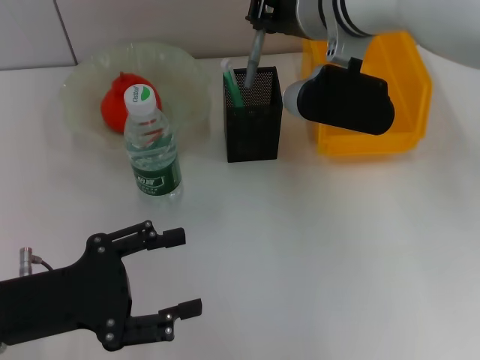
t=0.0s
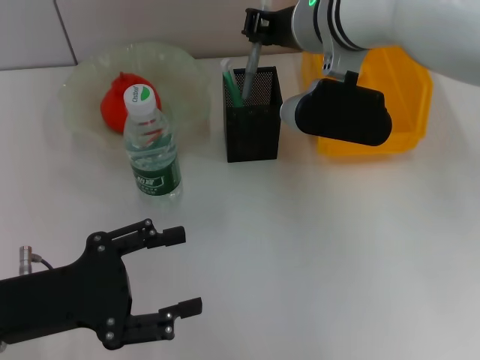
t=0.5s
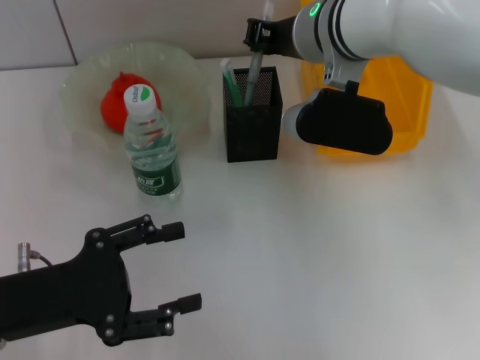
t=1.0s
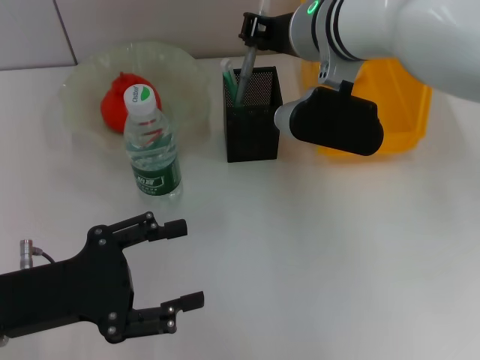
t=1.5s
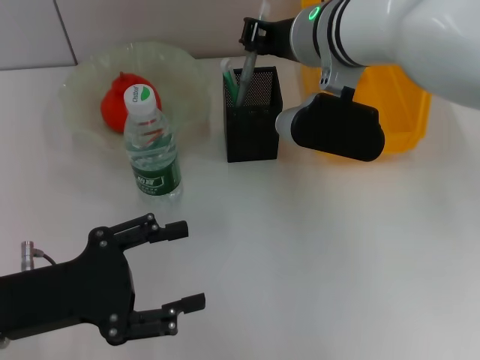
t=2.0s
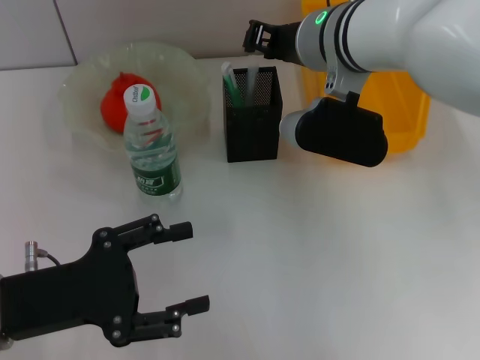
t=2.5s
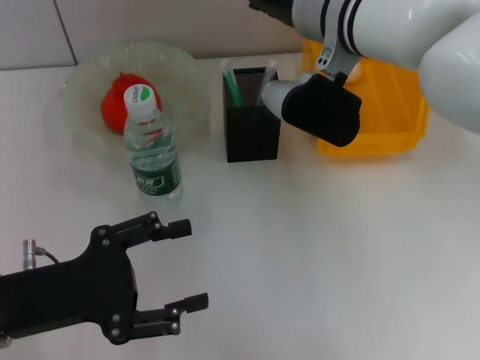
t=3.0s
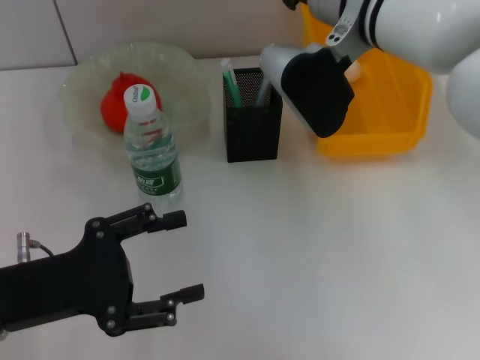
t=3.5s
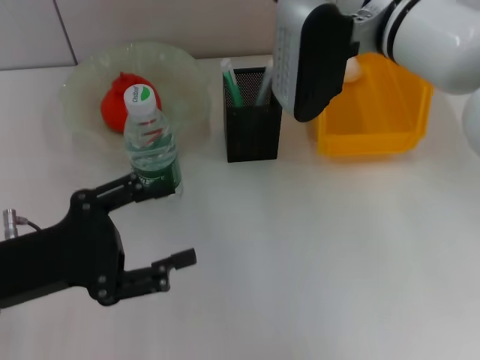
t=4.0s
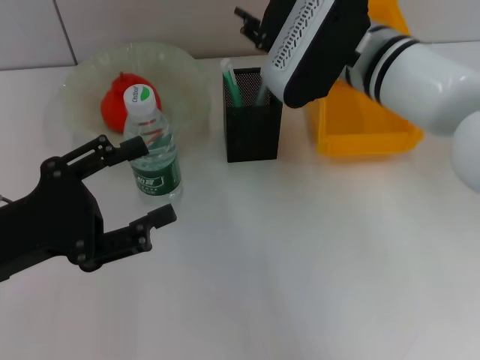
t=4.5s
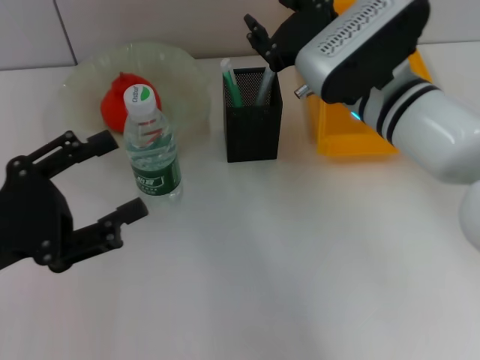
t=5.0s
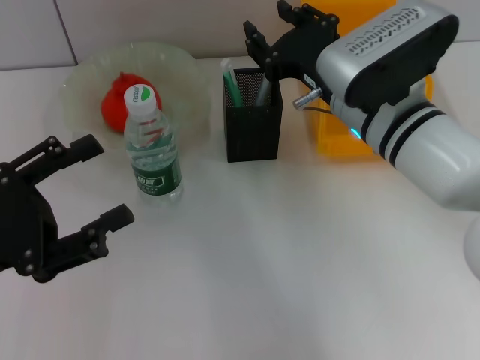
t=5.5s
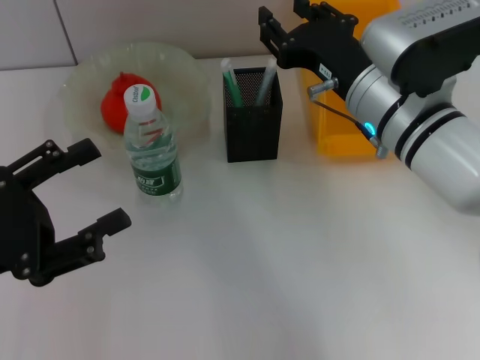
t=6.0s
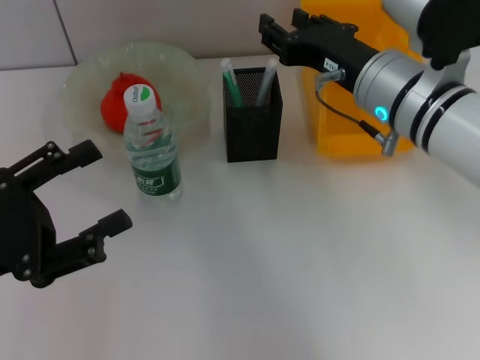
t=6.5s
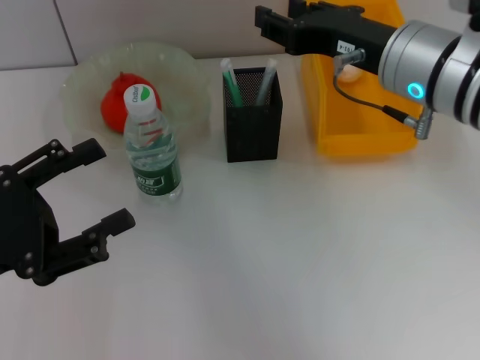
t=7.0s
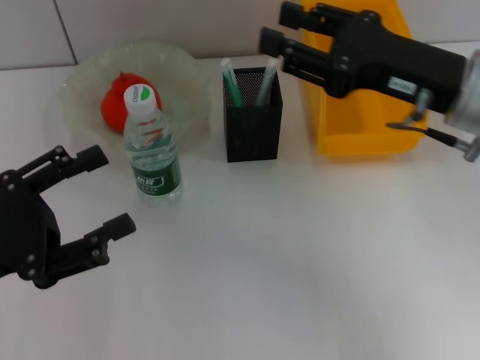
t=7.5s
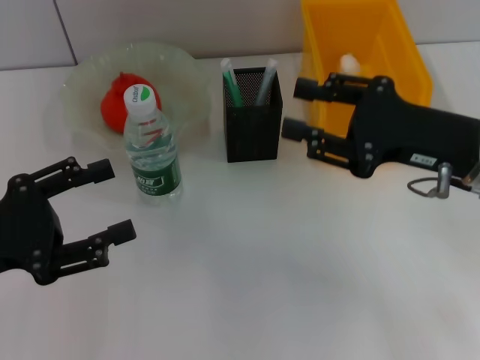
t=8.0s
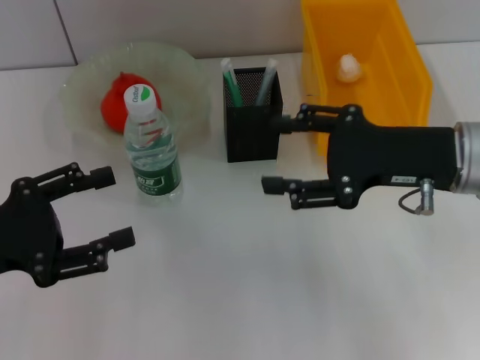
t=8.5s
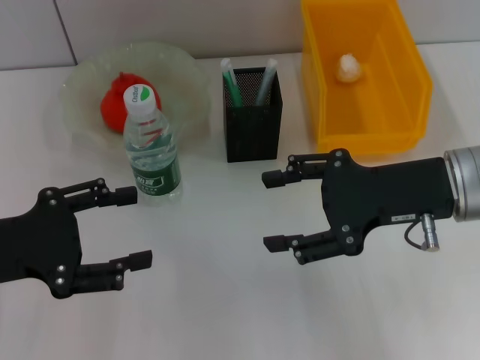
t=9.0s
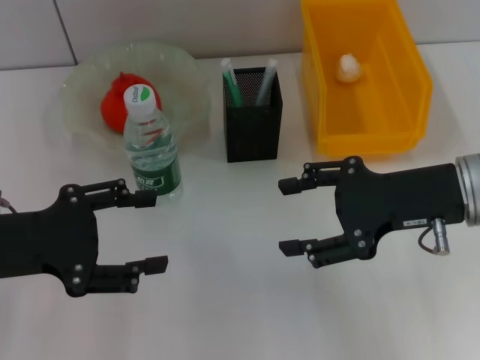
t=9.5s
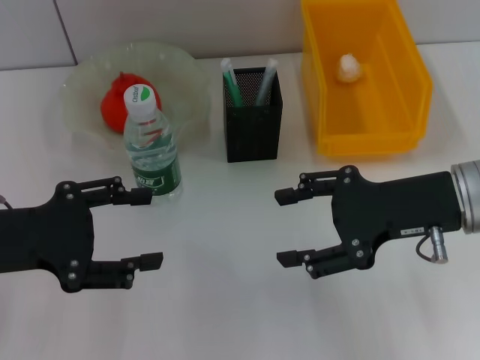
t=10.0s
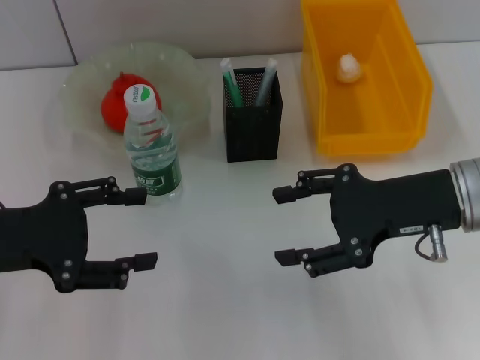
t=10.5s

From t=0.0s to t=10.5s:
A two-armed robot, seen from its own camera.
Step, from t=0.0s to t=2.0s: Place the gray glue into the pen holder with the right hand.
From t=0.0s to t=2.0s: The grippers stay close to where they were, moving slightly.
From t=2.0s to t=4.0s: The right gripper opens its fingers.
From t=4.0s to t=6.5s: The right gripper moves backward, roughly 5 cm.
From t=6.5s to t=8.5s: The right gripper moves to the right, approximately 10 cm.
From t=8.5s to t=10.5s: The grippers make only small movements.

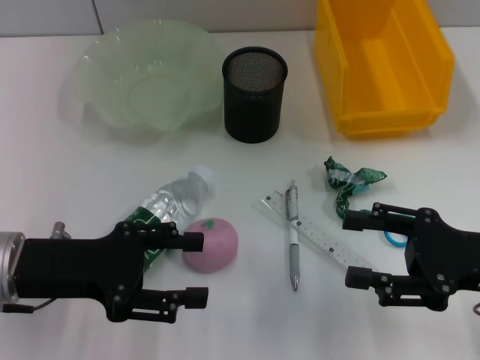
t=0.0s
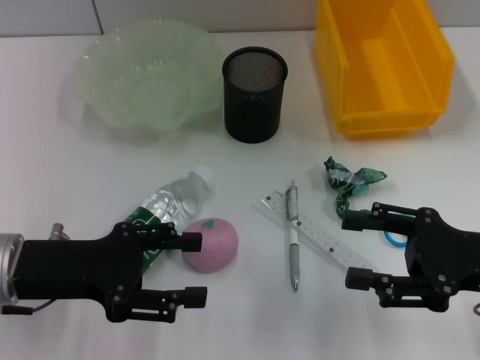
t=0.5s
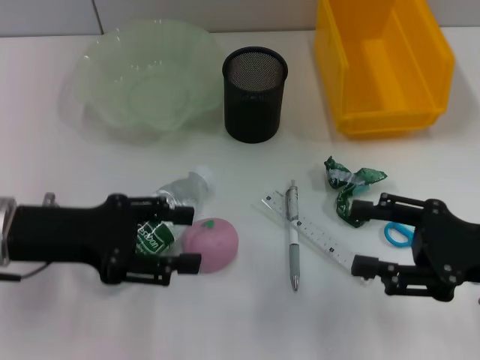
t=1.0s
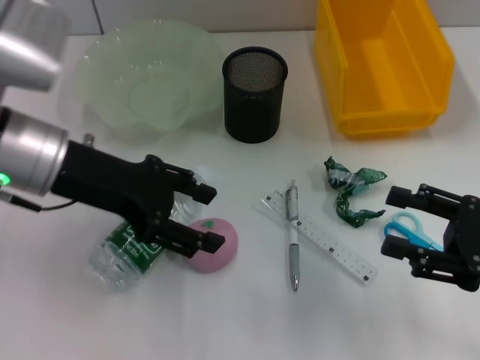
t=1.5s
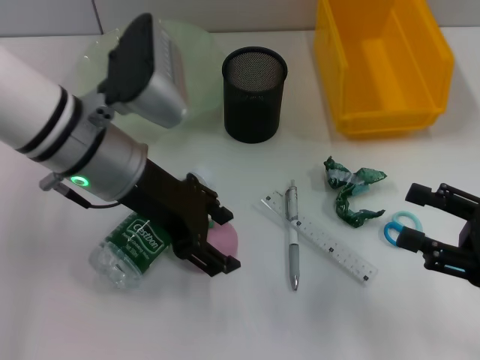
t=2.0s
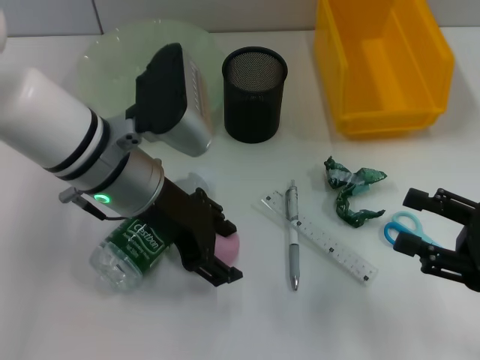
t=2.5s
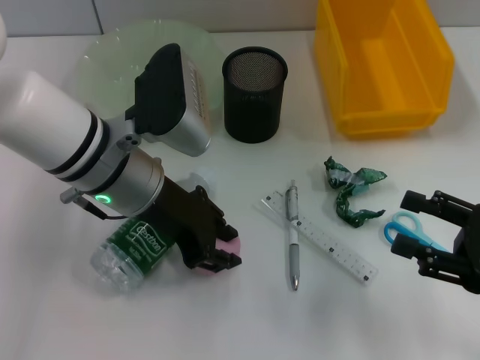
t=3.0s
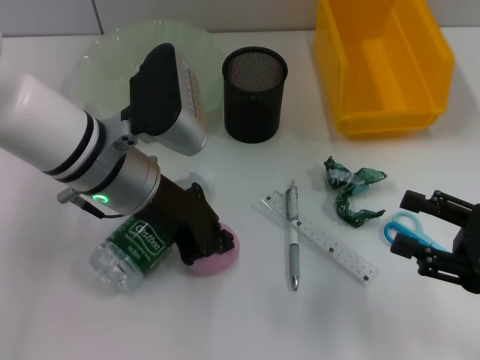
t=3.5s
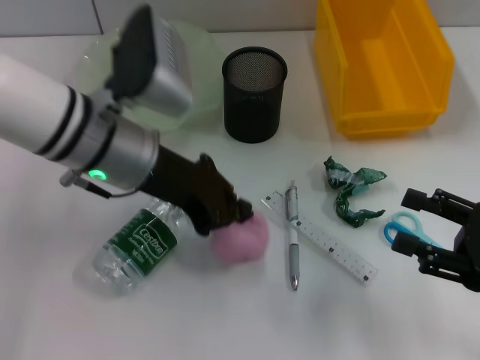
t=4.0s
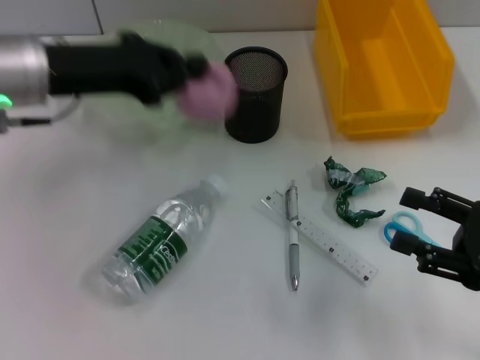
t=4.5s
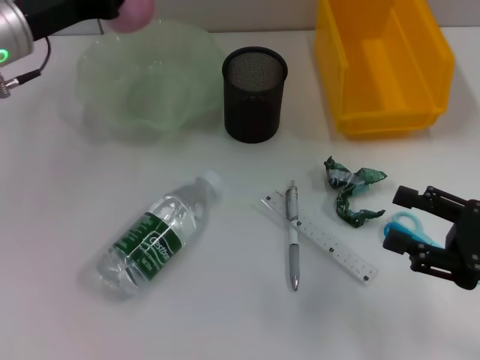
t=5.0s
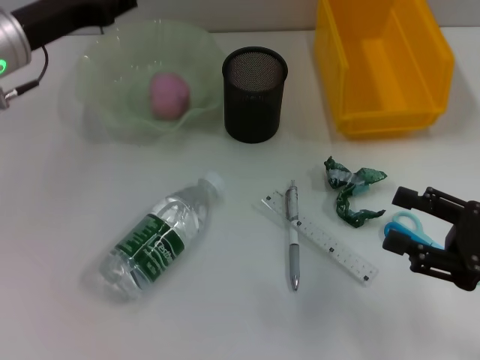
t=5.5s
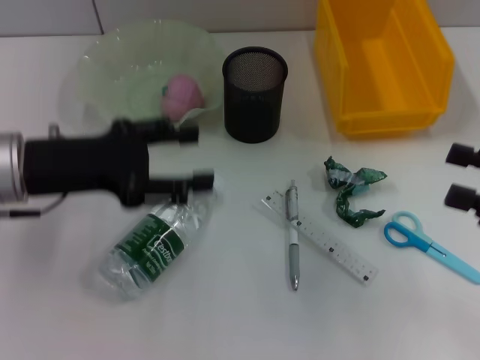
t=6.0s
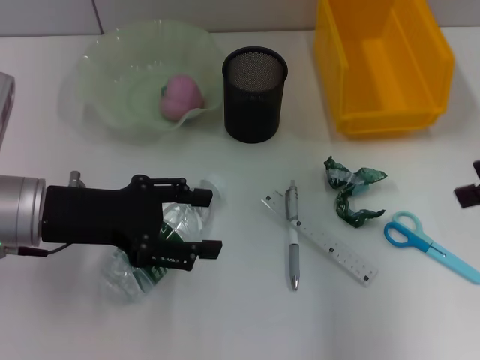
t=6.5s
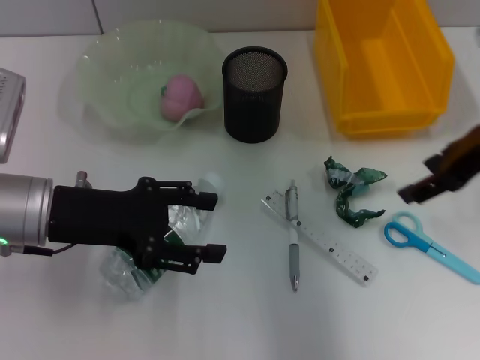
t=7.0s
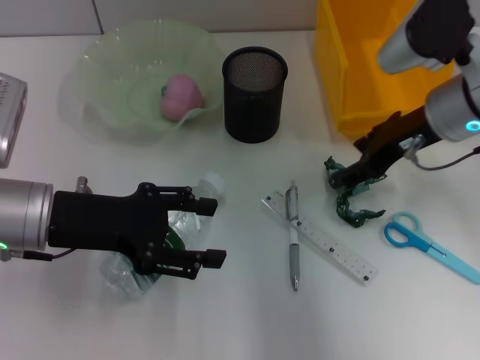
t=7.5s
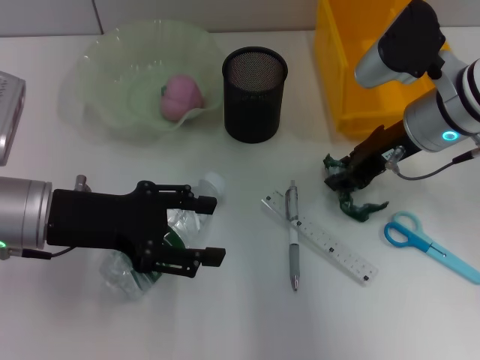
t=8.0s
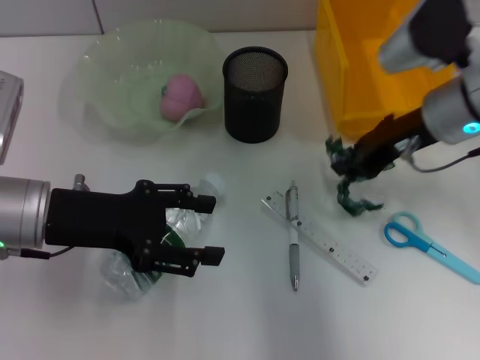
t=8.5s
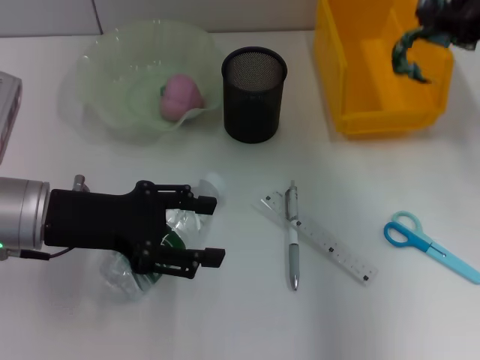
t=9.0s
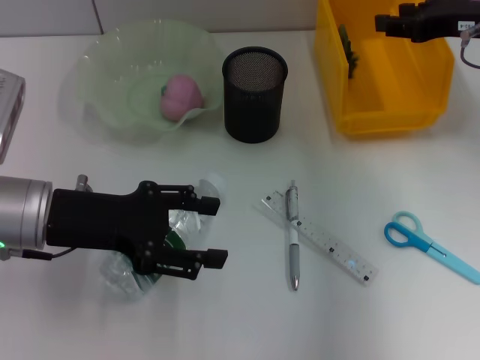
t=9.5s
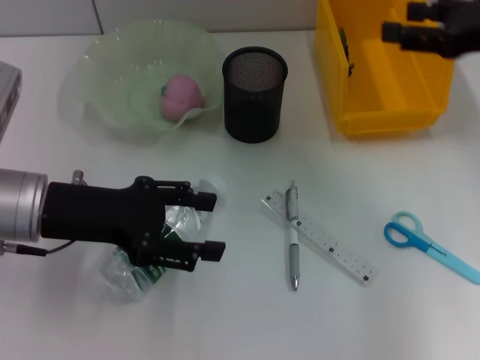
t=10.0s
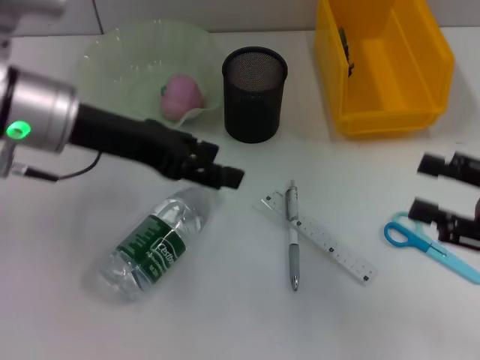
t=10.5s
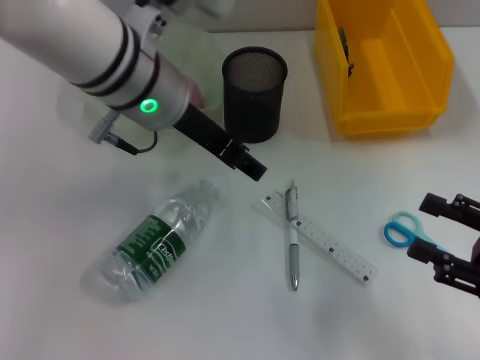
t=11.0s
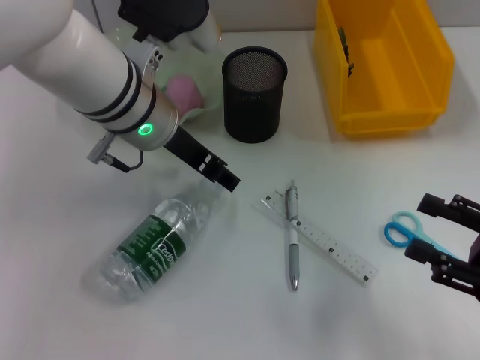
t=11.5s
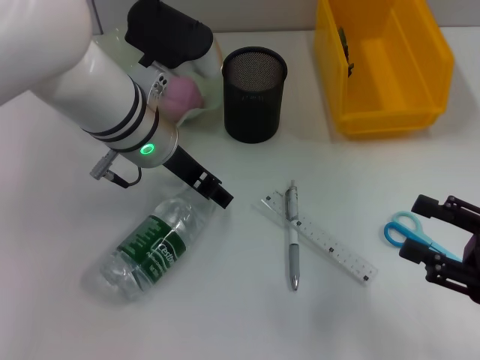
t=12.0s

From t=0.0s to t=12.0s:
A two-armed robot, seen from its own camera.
Step, from t=0.0s to t=3.0s: Grab the peach with the left hand.
Step, from t=3.5s to t=6.0s: Place the peach into the fruit bowl with the left hand.
Step, from t=6.5s to t=8.0s: Grab the plastic with the right hand.
Step, from t=8.5s to t=10.0s: Place the plastic into the trash can with the right hand.
From t=0.0s to t=2.0s: The left gripper travels to the right, forward and upward by about 15 cm.
From t=2.0s to t=4.0s: The left gripper closes its fingers.
From t=4.0s to t=6.0s: The left gripper moves to the left, approximately 10 cm, and opens its fingers. The right gripper heads upward, covering approximately 5 cm.
From t=6.0s to t=8.0s: The right gripper heads to the left and forward, covering approximately 20 cm.
From t=8.0s to t=10.0s: The right gripper moves to the right and upward, about 15 cm, and closes, then reopens.
From t=10.0s to t=12.0s: The right gripper goes about 20 cm backward and downward; the left gripper is displaced to the right and forward by approximately 15 cm.

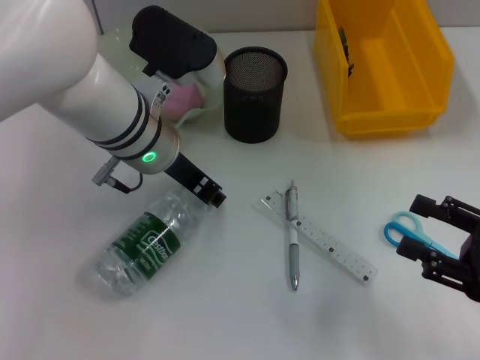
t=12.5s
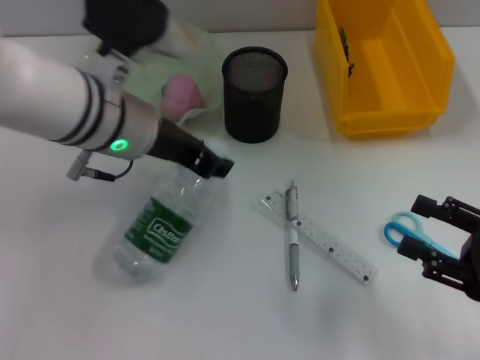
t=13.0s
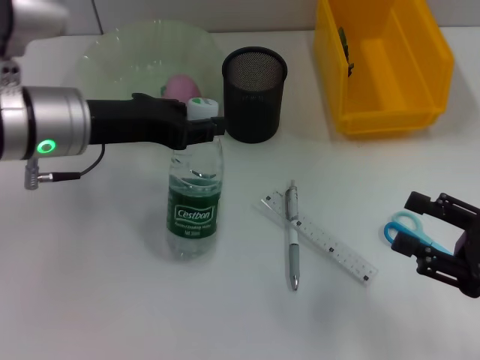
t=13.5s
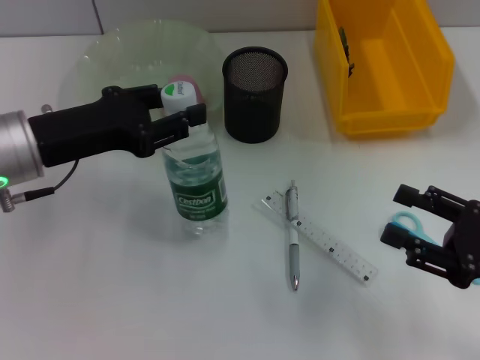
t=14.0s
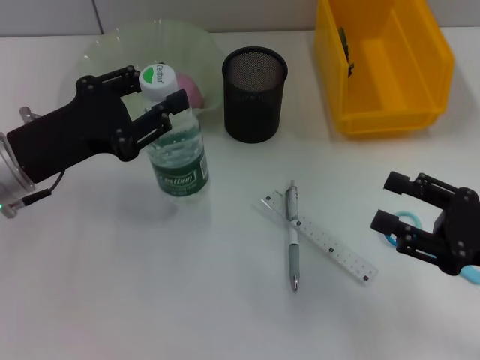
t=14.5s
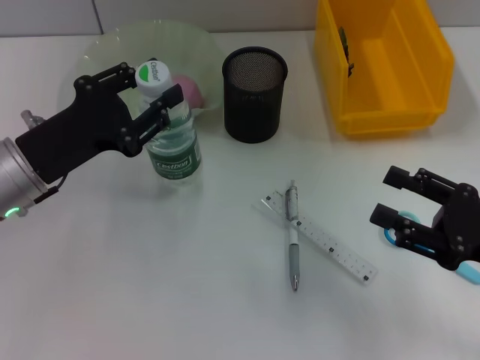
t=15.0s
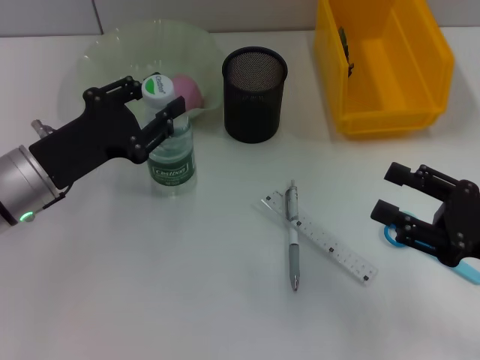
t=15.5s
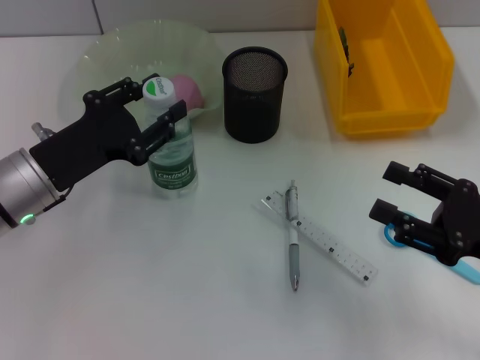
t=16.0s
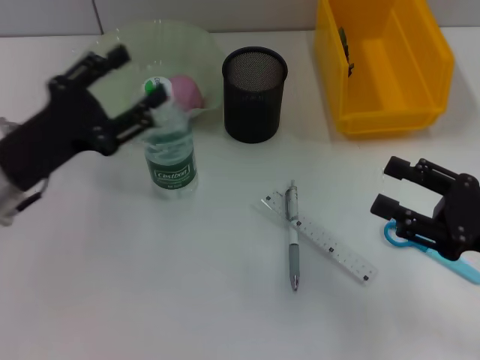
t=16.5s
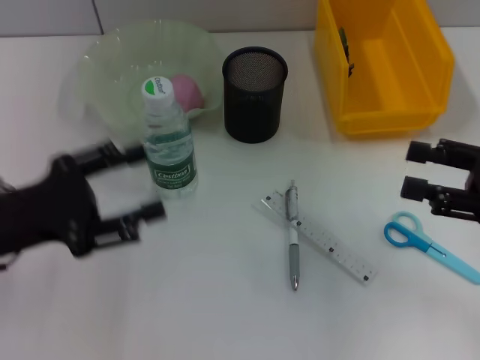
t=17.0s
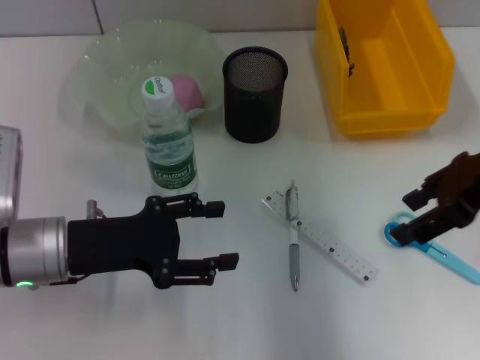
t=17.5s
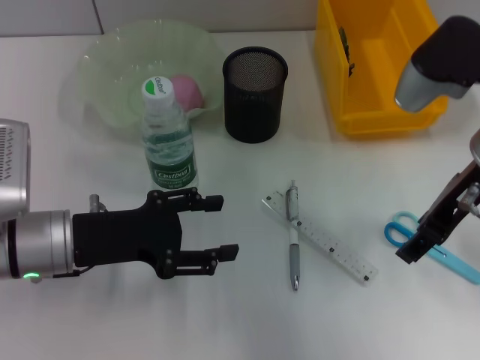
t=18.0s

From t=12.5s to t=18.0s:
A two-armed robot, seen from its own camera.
Step, from t=13.5s to t=16.5s: Place the water bottle on the table with the left hand.
From t=12.5s to t=14.5s: The left gripper shifts approximately 15 cm to the left and backward.
From t=14.5s to t=16.0s: The grippers move only a little.
From t=16.0s to t=18.0s: The right gripper is displaced upward, forward and to the left by some 20 cm.
